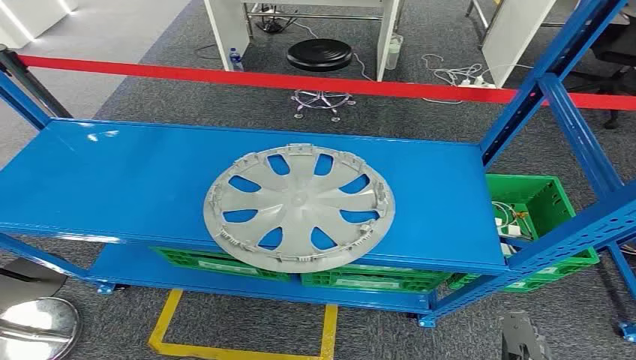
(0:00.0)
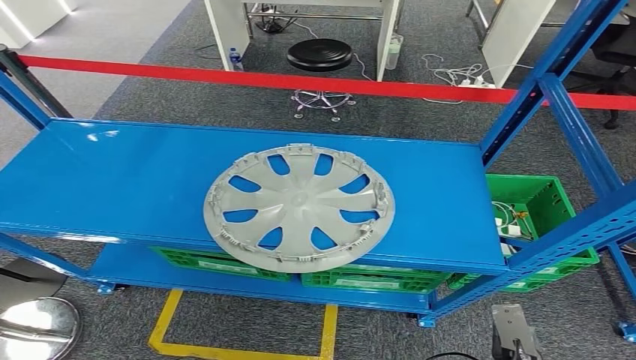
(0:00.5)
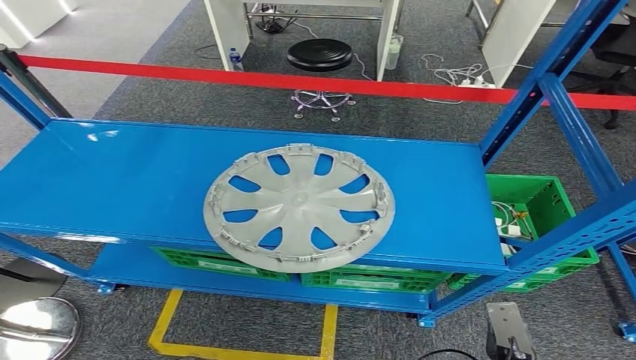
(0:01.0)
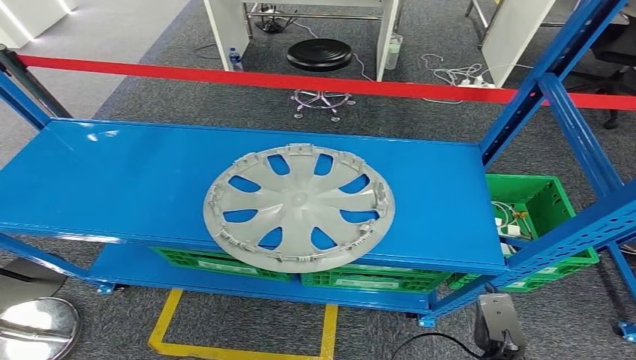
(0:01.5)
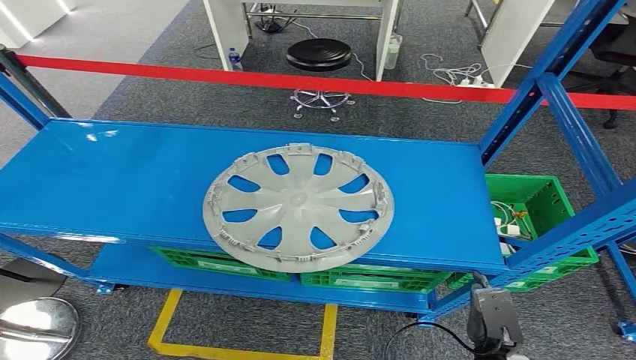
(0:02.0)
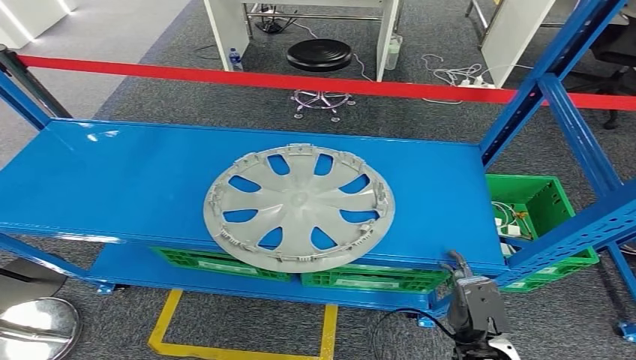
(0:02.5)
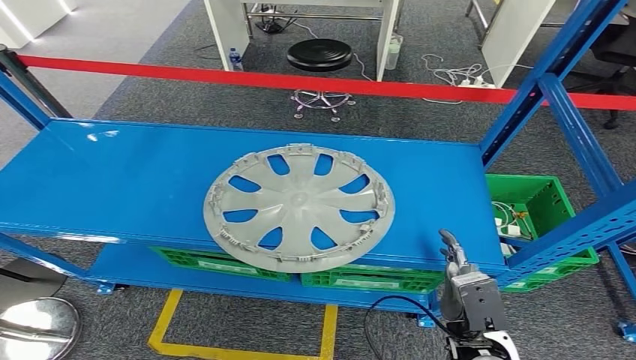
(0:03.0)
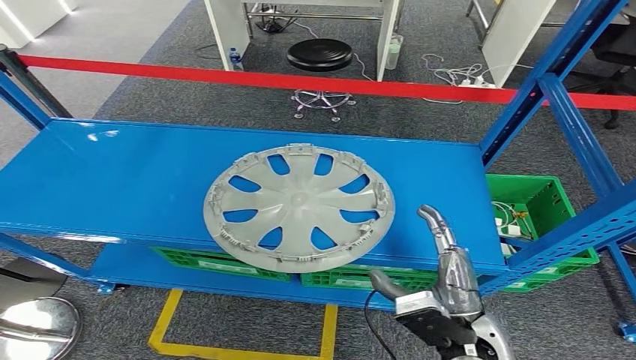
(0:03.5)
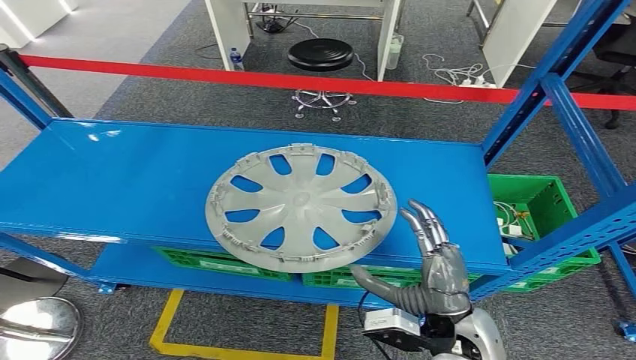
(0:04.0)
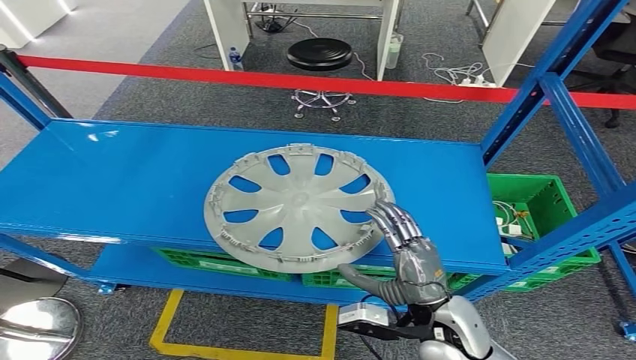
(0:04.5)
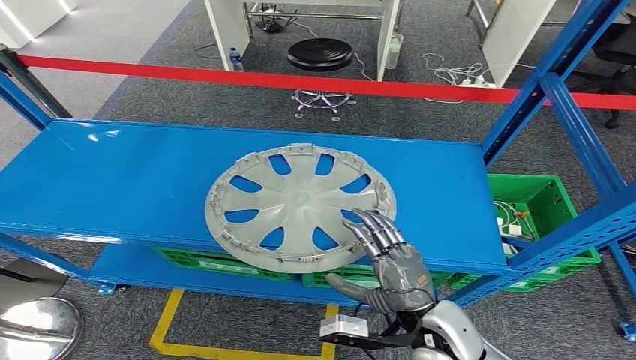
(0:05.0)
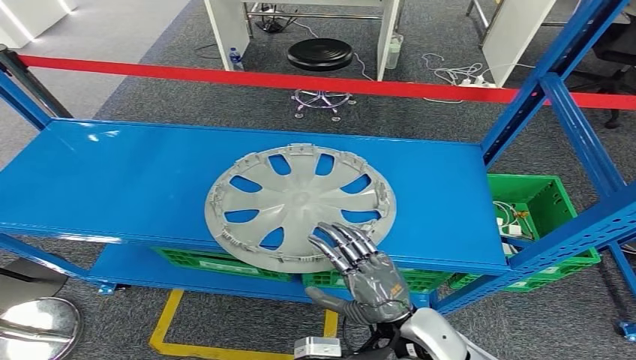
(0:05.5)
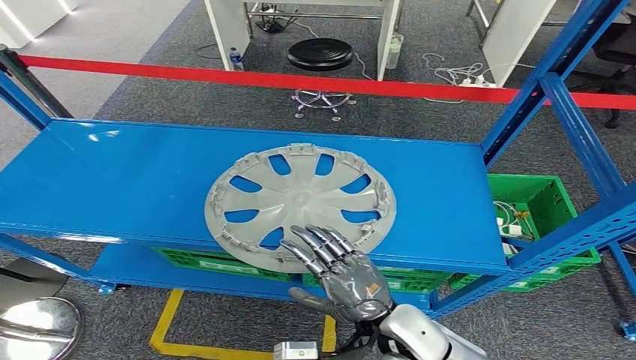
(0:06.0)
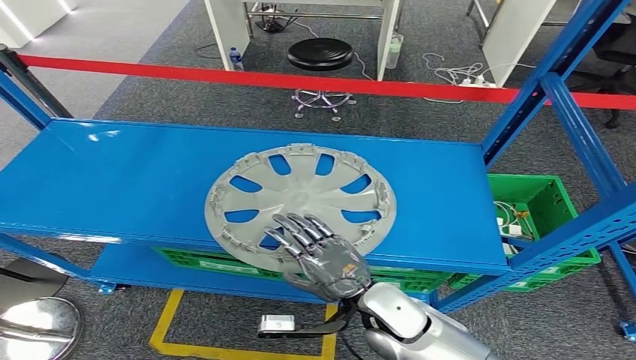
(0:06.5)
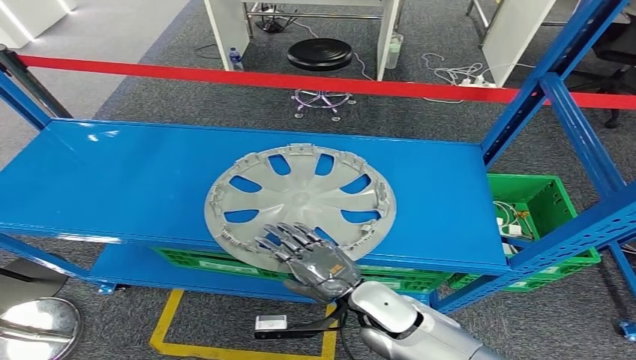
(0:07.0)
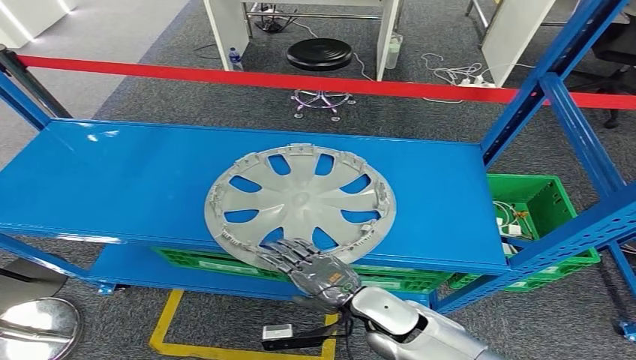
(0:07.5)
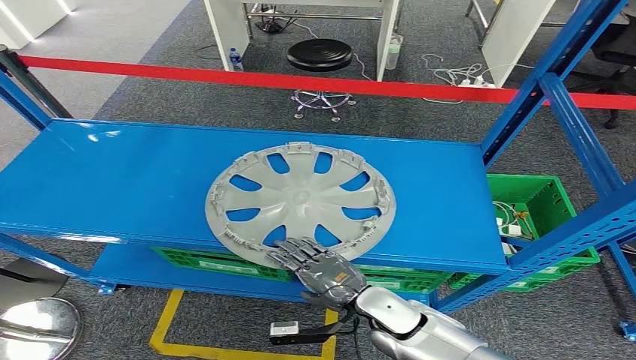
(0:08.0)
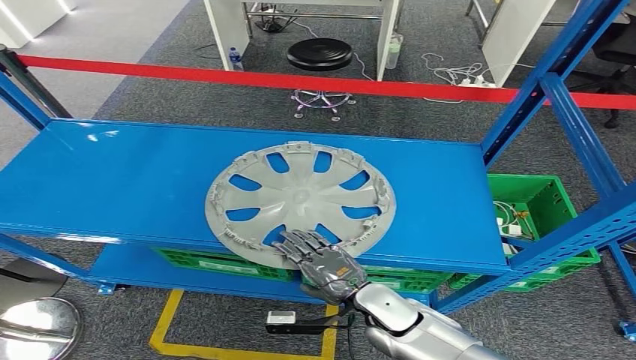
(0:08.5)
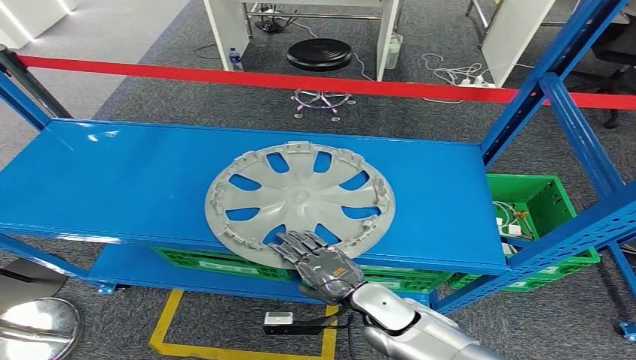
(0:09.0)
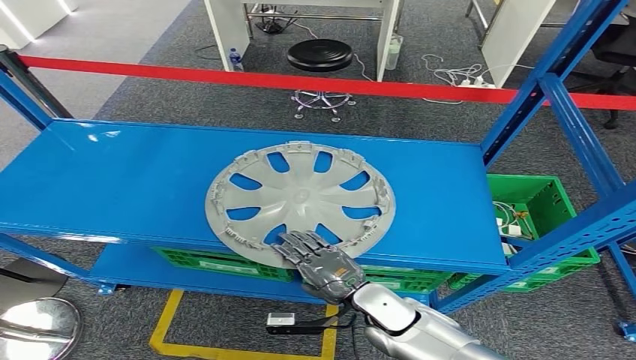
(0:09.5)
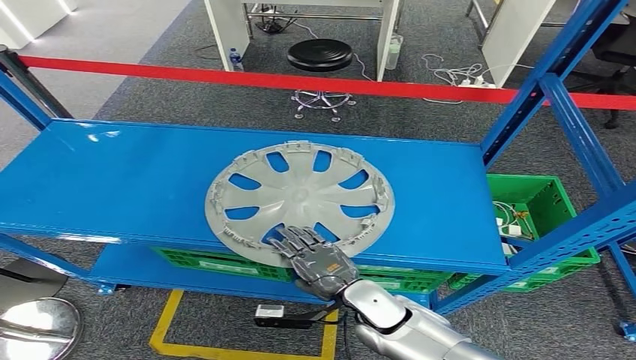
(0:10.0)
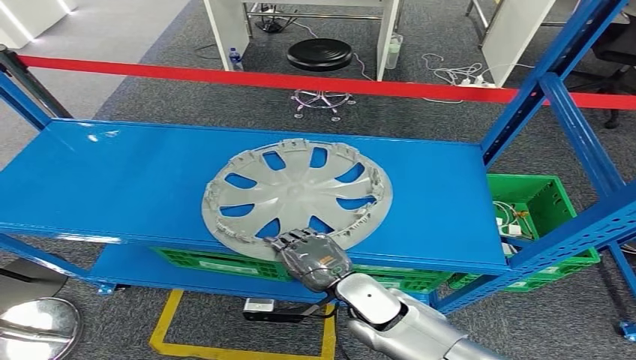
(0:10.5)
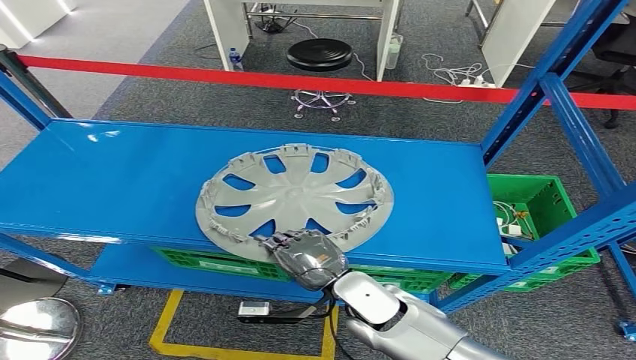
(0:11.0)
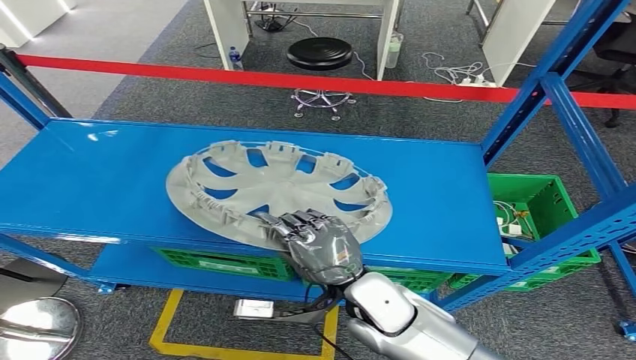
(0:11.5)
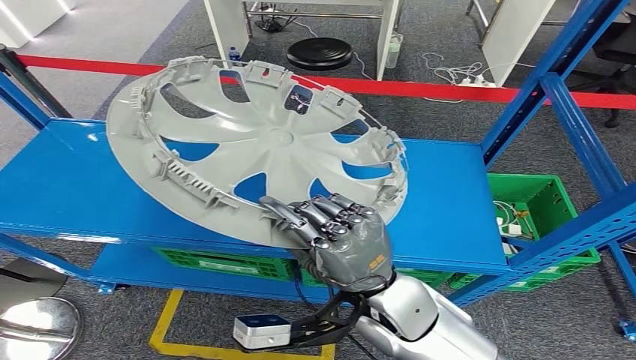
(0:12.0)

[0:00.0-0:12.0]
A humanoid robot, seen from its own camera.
0:02.0 to 0:04.0: The left hand shifts roughly 5 cm downward. Meanwhile the right hand is displaced upward, to the left and forward by some 15 cm.
0:04.0 to 0:06.0: The right hand travels to the left by some 5 cm, while the left hand travels downward by some 5 cm.
0:06.0 to 0:08.0: The right hand travels downward by approximately 5 cm.
0:08.0 to 0:10.0: The hands make only small movements.

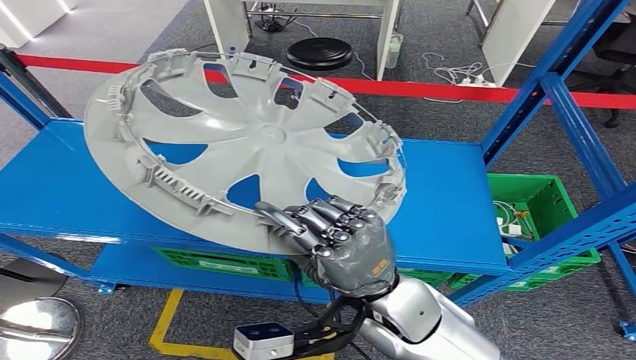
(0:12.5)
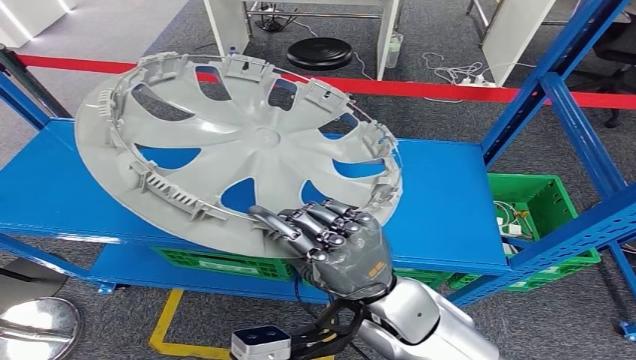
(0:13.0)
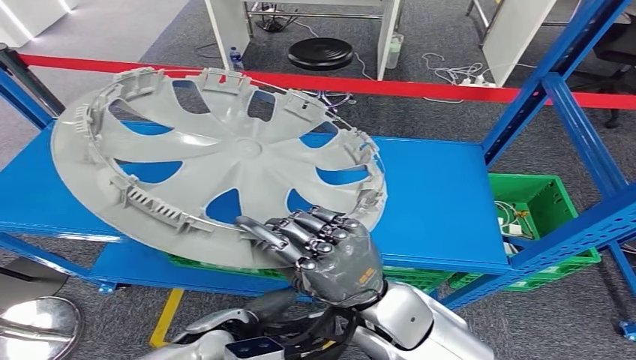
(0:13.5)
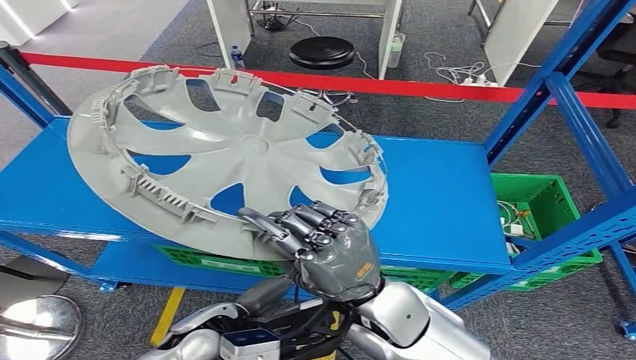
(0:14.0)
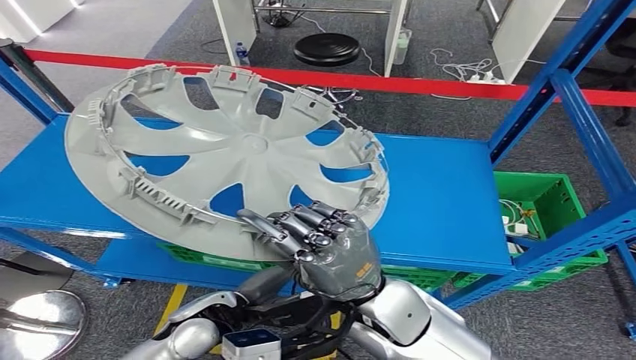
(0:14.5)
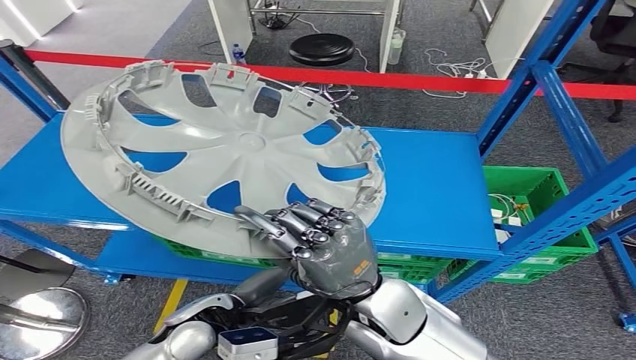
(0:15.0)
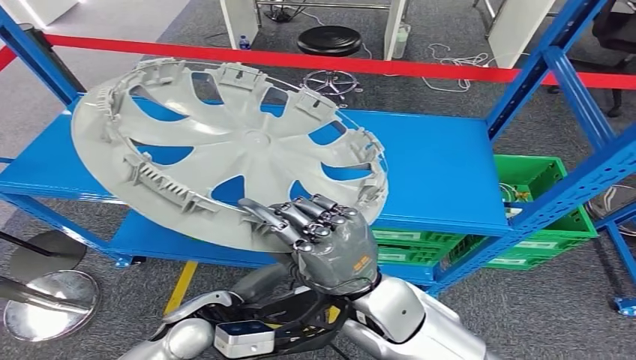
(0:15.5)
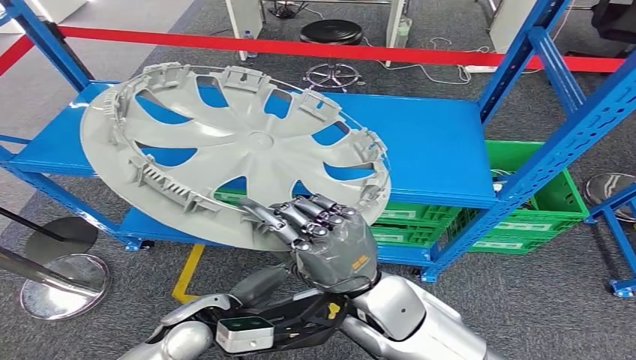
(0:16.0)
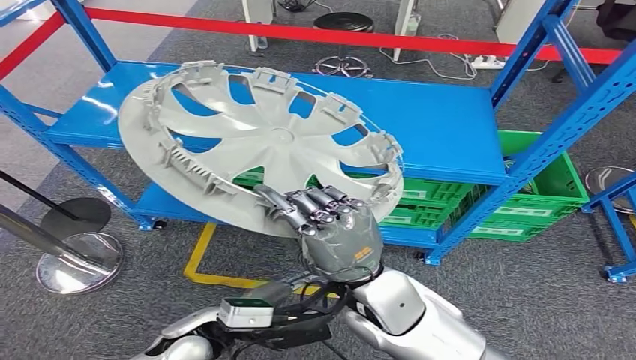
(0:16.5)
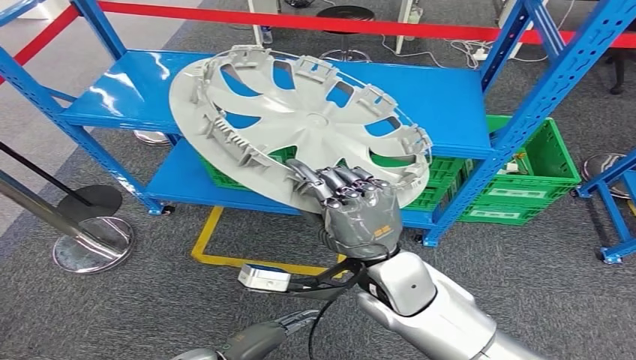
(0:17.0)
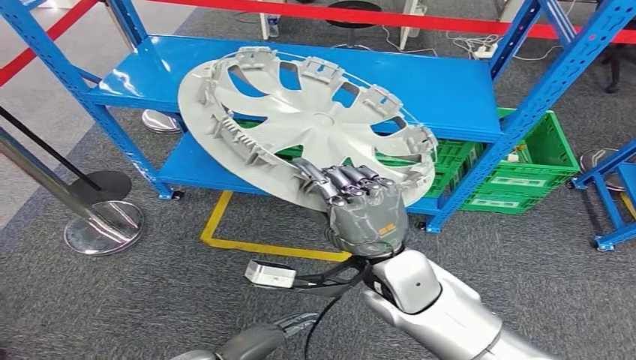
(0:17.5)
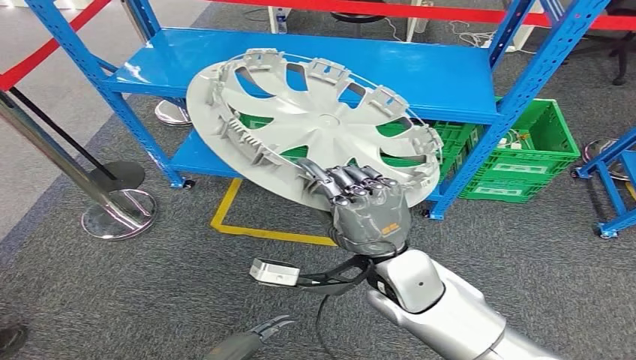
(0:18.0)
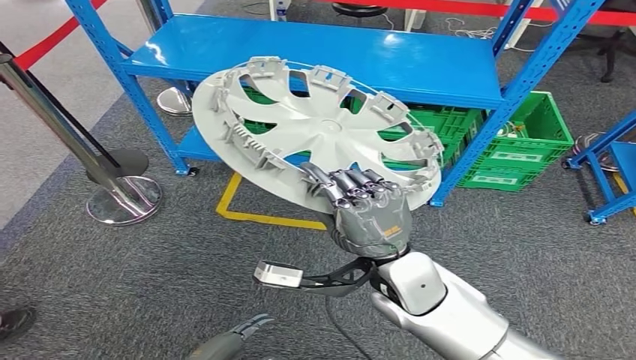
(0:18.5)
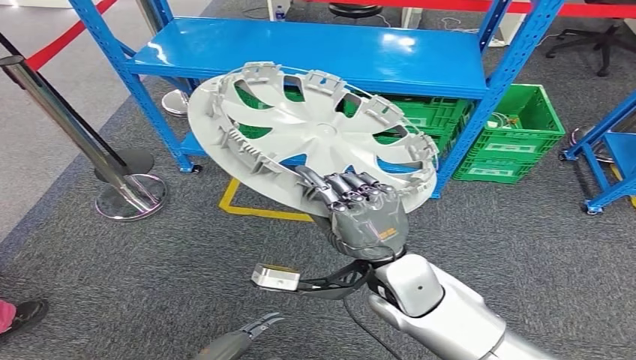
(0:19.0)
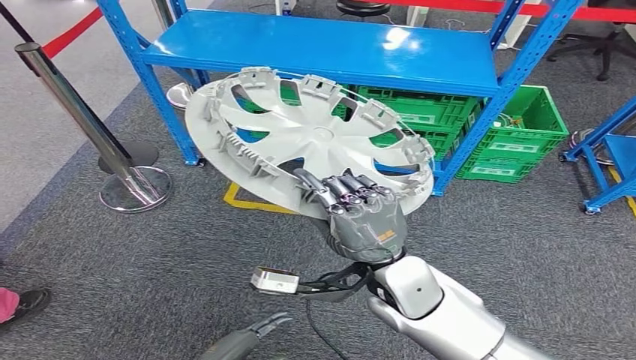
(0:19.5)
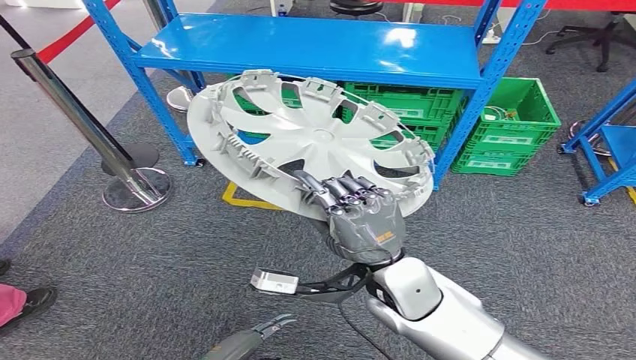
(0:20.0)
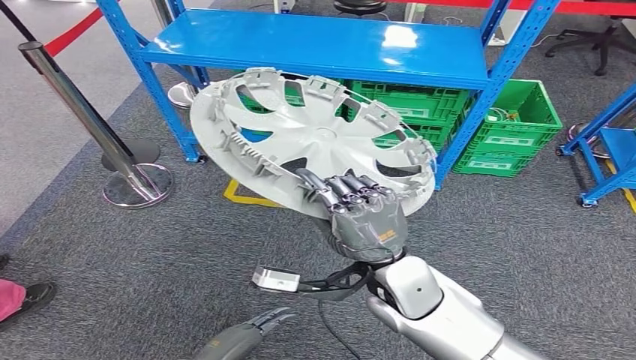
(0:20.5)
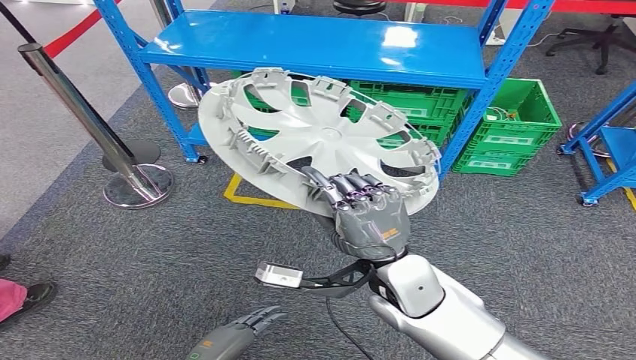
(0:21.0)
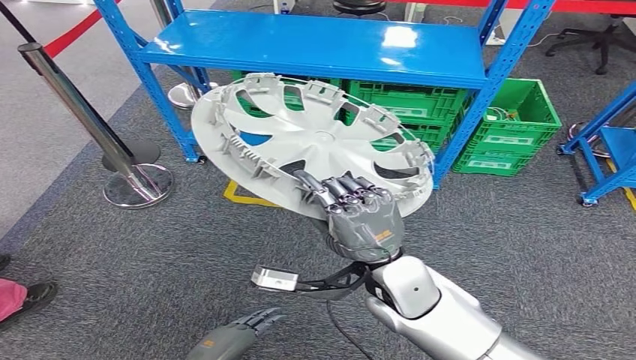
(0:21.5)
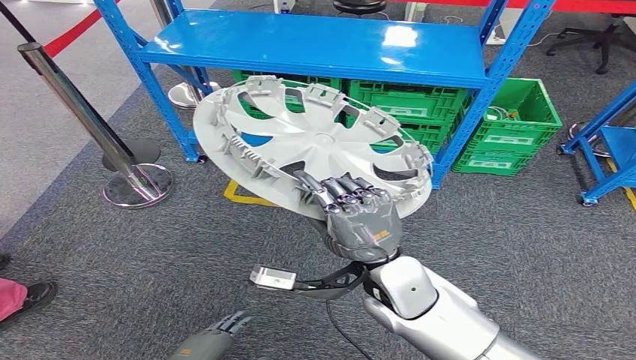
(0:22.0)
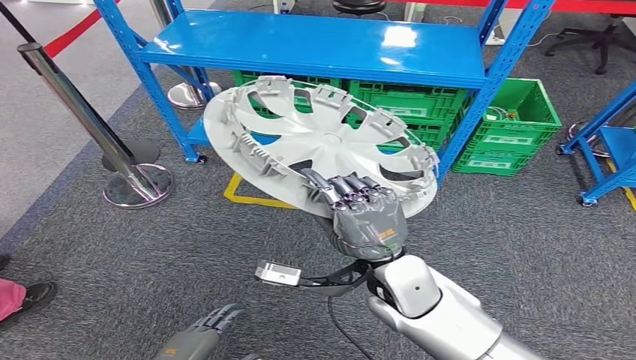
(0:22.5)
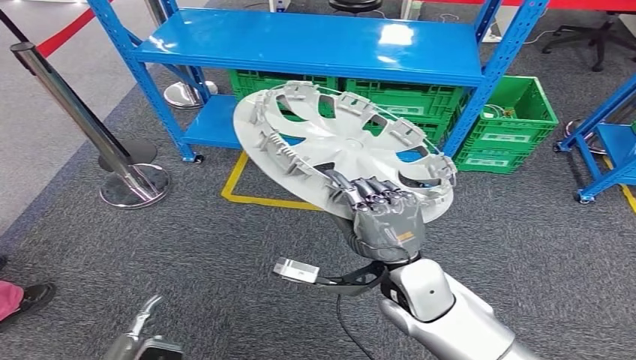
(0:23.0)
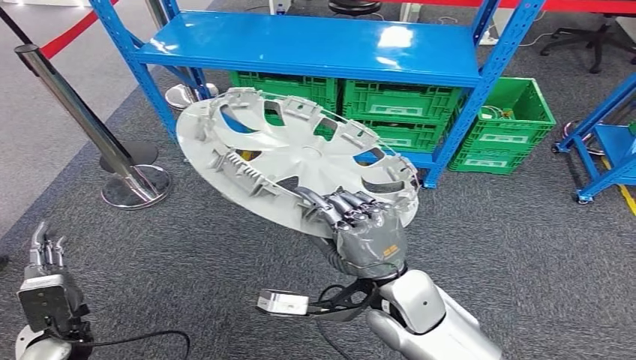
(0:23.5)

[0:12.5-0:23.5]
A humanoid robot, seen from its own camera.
Step, 0:12.5 to 0:22.5: Pick up the small component from the shelf.
0:20.0 to 0:21.5: The hands move only a little.
